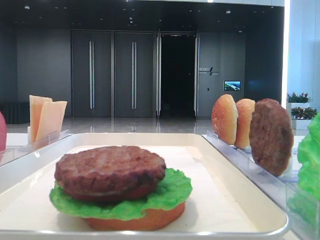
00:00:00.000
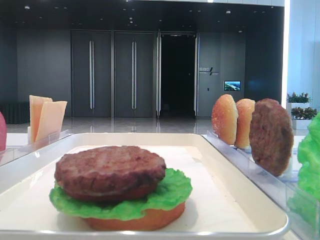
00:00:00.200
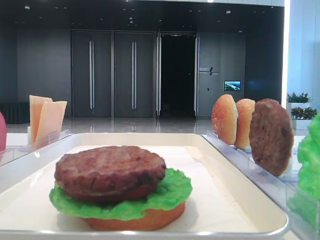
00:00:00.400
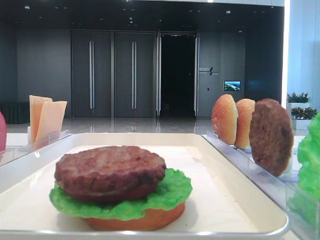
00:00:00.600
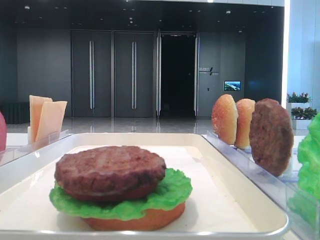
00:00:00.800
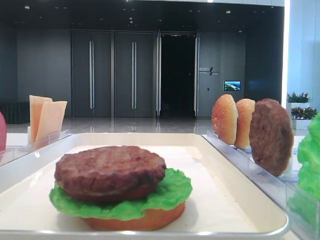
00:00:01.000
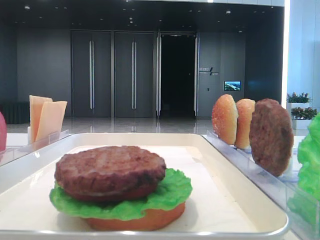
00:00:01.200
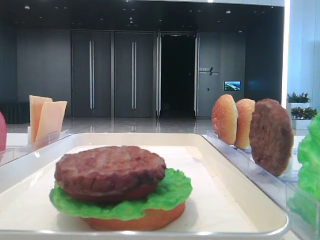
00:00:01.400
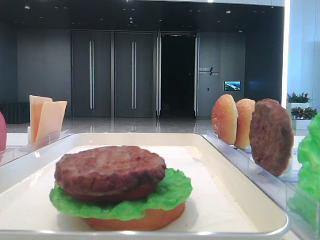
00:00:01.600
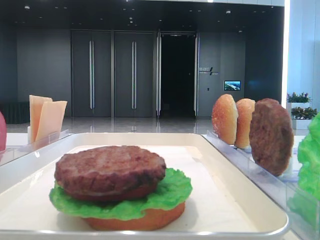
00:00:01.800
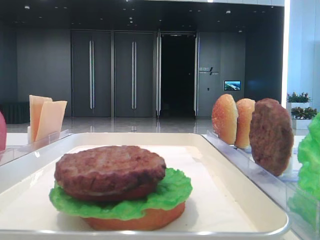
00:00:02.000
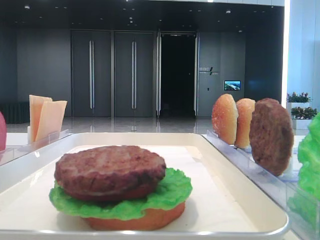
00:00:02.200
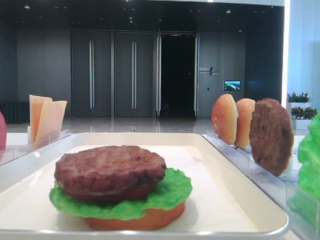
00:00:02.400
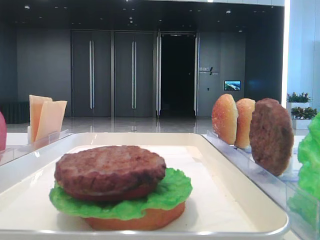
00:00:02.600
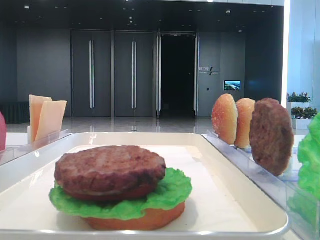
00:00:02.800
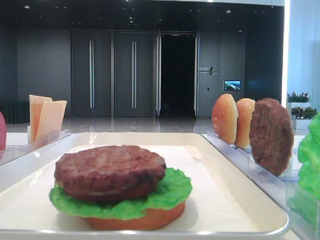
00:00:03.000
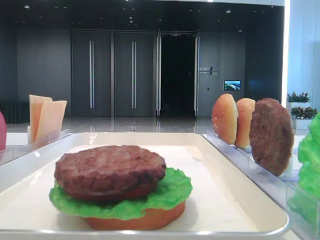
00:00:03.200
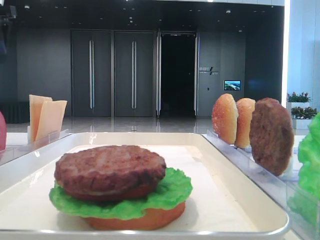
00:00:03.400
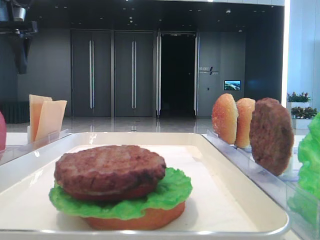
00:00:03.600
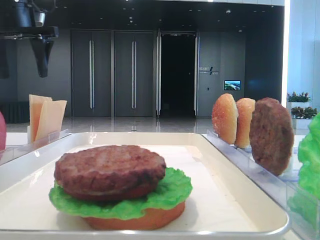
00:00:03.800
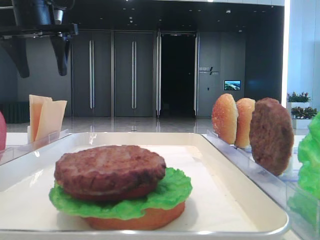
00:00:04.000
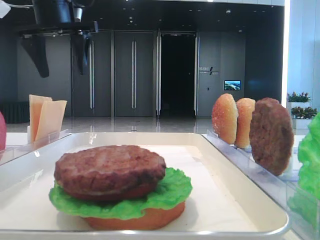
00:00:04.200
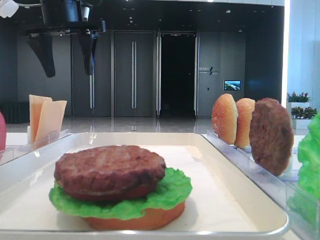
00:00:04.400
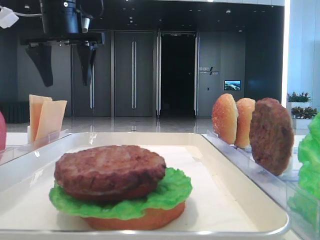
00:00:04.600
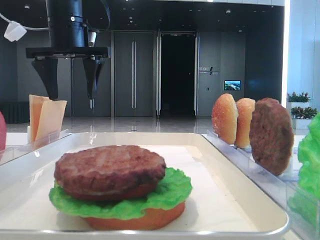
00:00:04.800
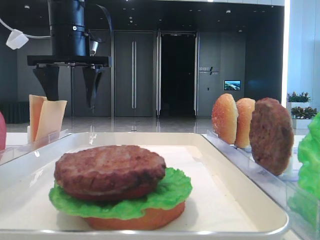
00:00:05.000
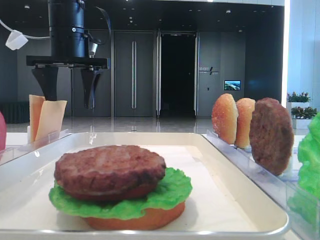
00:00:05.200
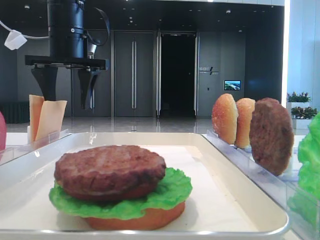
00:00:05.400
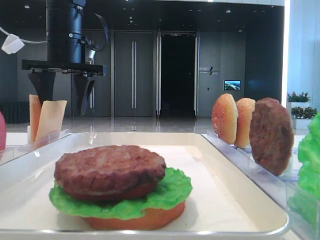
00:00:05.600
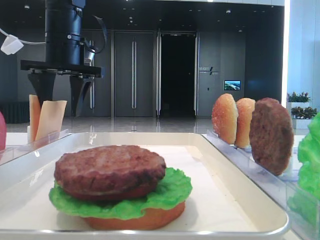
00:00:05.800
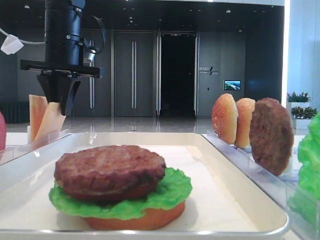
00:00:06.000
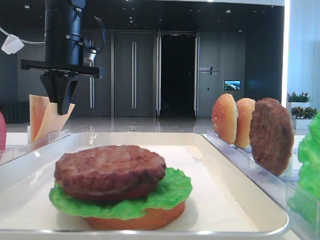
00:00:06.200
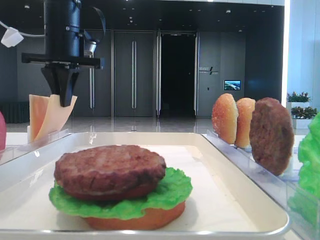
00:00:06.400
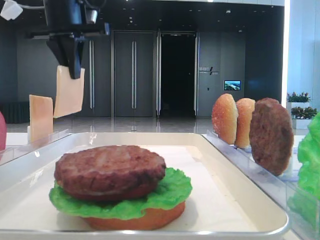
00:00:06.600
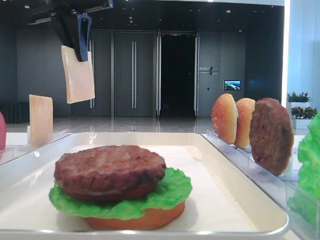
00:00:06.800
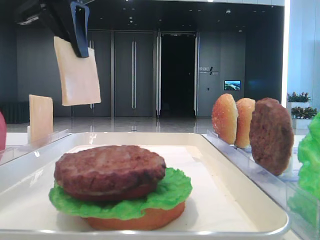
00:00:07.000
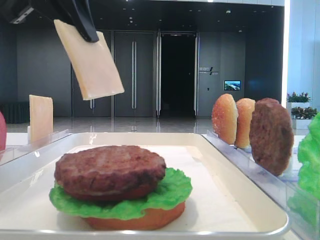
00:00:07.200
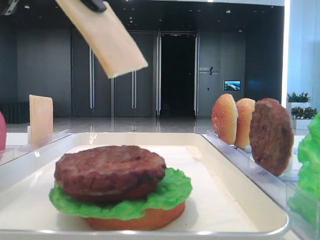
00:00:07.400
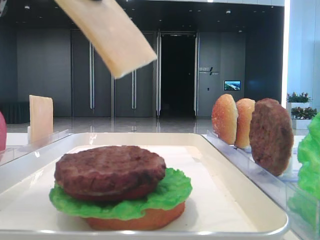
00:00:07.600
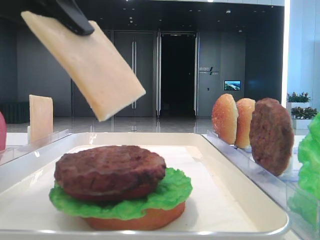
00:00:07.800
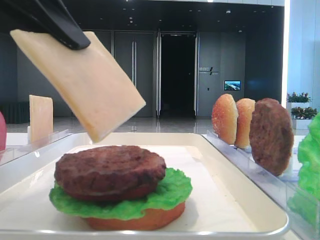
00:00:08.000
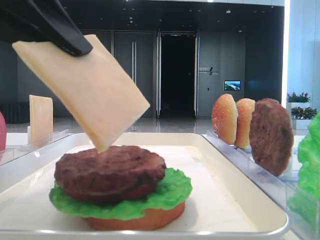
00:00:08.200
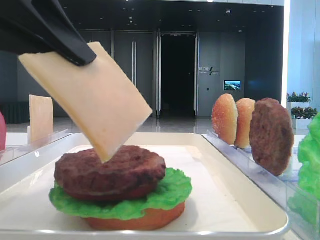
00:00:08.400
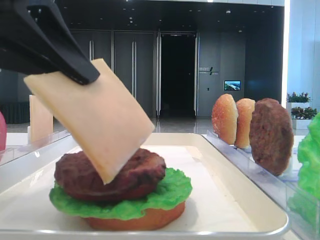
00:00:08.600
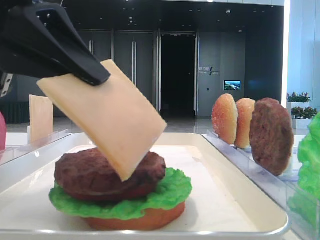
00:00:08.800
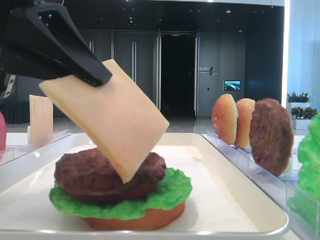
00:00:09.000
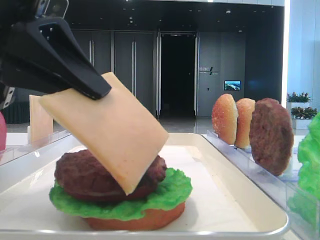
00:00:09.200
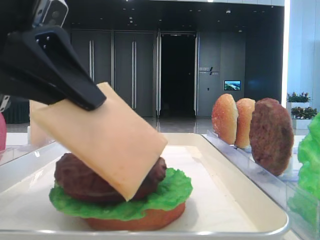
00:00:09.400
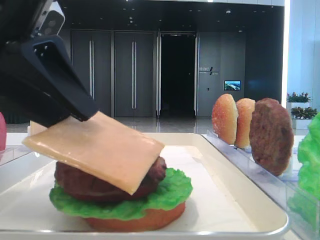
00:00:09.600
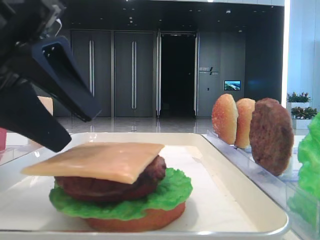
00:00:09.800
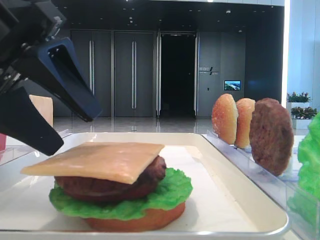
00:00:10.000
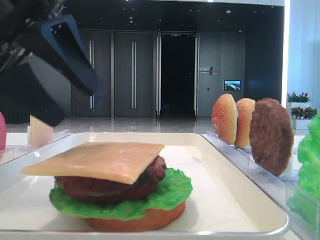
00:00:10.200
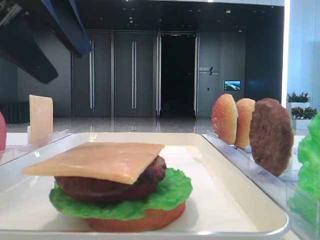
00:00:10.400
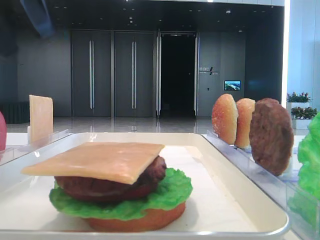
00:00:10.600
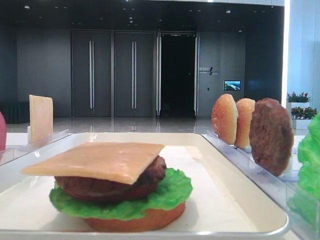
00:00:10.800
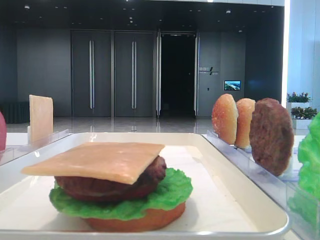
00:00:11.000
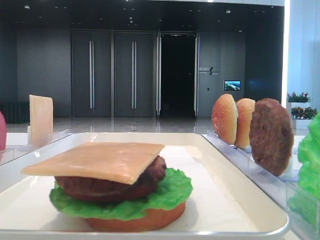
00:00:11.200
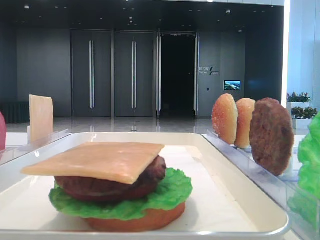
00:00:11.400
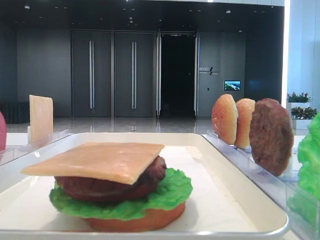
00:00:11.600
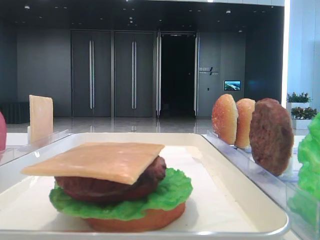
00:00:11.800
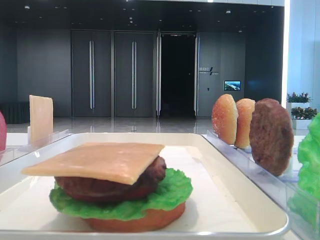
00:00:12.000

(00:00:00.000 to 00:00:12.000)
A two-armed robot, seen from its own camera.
Step, 00:00:00.000 - 00:00:06.000: Pick up the cheese slice with the left hand.
Step, 00:00:06.400 - 00:00:09.600: Place the cheese slice on the patty with the left hand.
00:00:03.000 - 00:00:04.400: The left gripper moves to the right and forward, some 15 cm.
00:00:04.400 - 00:00:06.000: The left gripper moves downward, some 5 cm, and closes up.
00:00:06.000 - 00:00:07.600: The left gripper goes approximately 25 cm backward.
00:00:07.600 - 00:00:09.000: The left gripper goes some 5 cm downward.
00:00:09.000 - 00:00:10.400: The left gripper is displaced upward by about 10 cm, and opens its fingers.
00:00:10.400 - 00:00:12.000: The left gripper travels backward and to the left by some 20 cm.

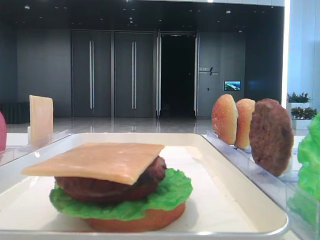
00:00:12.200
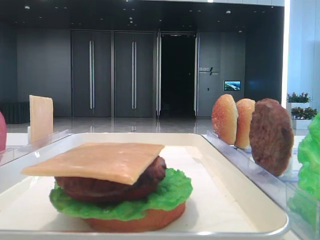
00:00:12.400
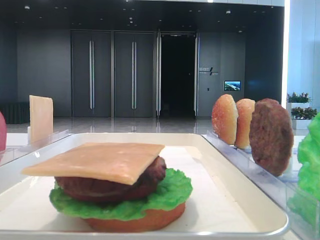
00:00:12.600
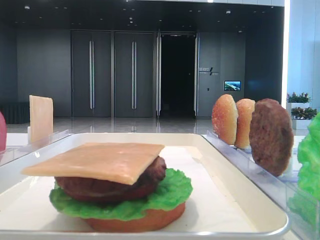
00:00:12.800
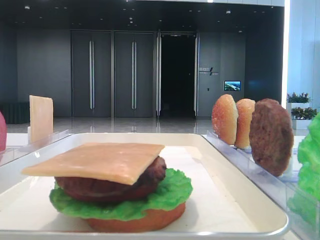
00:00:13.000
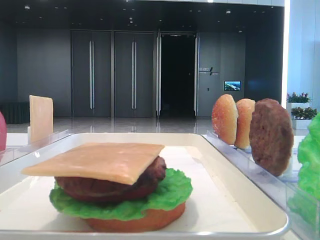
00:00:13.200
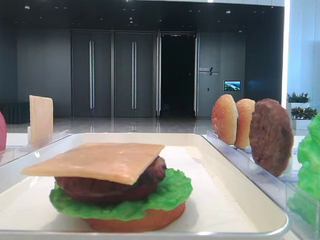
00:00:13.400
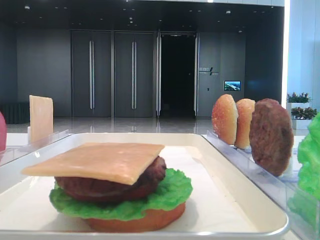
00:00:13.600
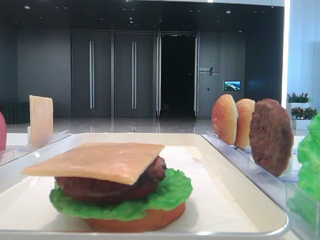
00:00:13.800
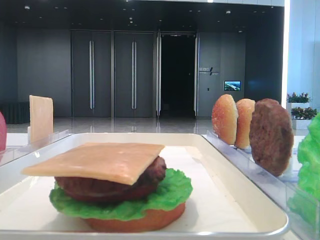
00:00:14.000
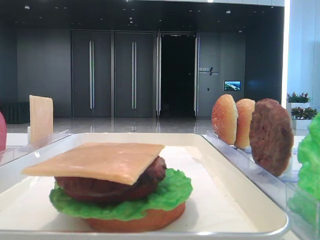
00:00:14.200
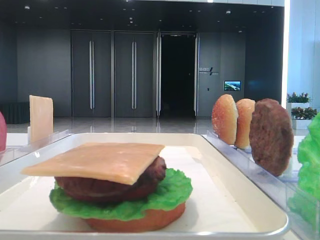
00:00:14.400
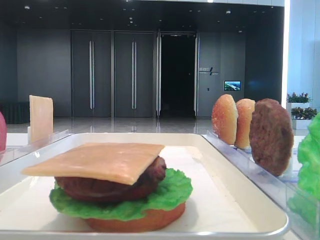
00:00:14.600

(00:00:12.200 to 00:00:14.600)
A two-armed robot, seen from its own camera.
00:00:13.400 - 00:00:14.600: The two grippers keep their place.

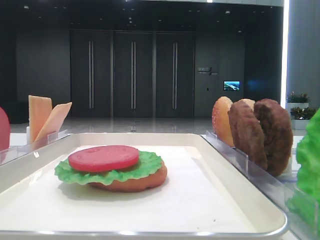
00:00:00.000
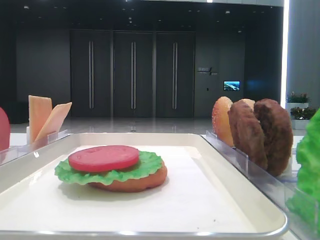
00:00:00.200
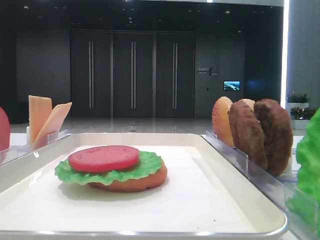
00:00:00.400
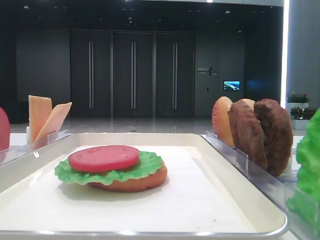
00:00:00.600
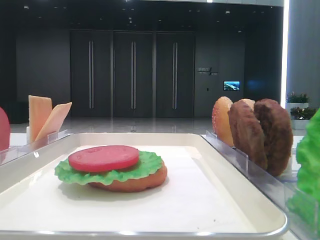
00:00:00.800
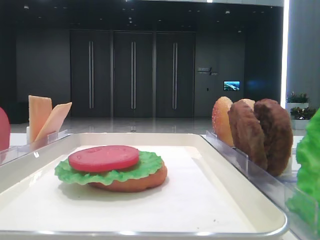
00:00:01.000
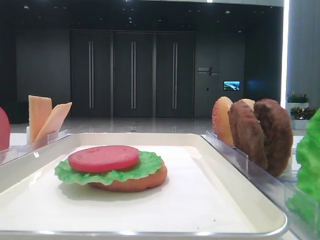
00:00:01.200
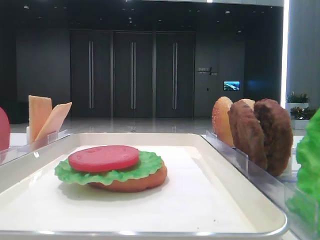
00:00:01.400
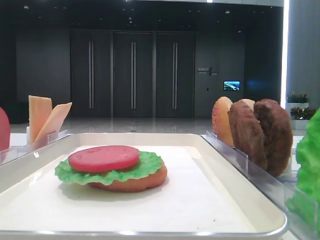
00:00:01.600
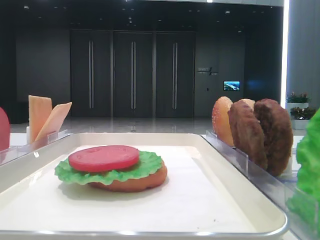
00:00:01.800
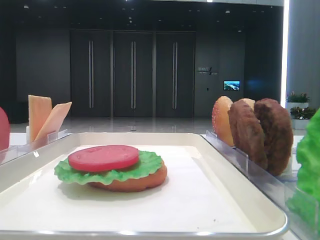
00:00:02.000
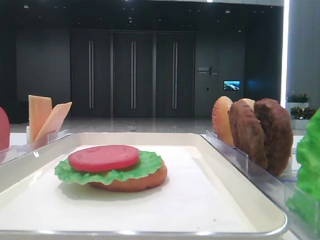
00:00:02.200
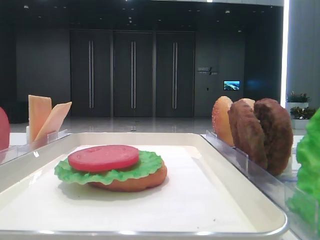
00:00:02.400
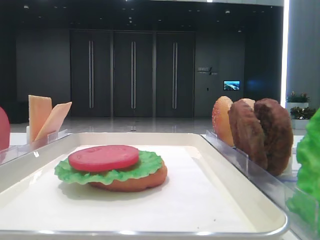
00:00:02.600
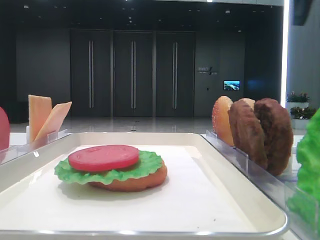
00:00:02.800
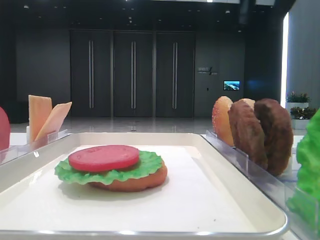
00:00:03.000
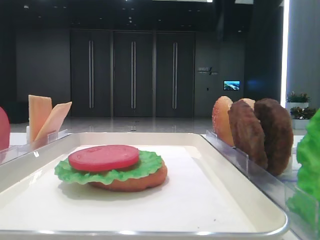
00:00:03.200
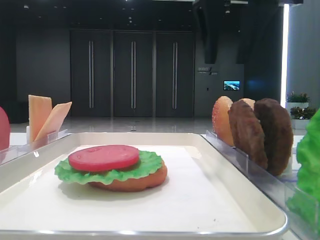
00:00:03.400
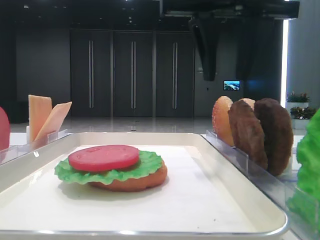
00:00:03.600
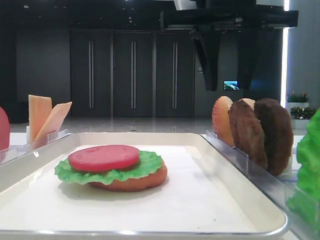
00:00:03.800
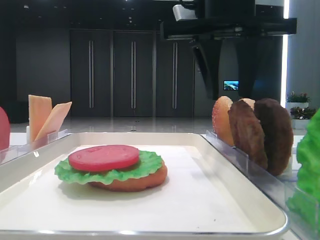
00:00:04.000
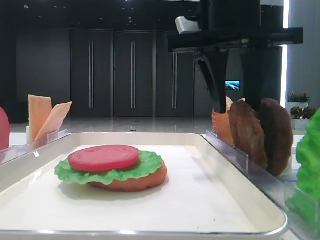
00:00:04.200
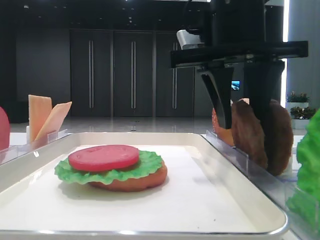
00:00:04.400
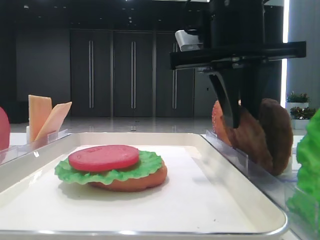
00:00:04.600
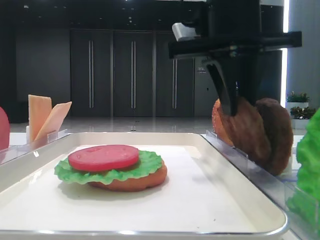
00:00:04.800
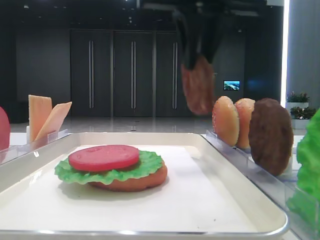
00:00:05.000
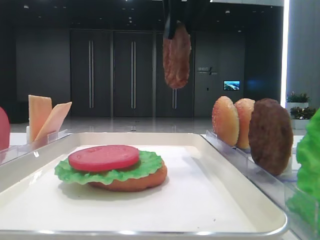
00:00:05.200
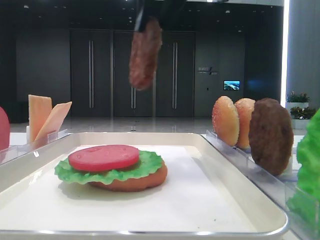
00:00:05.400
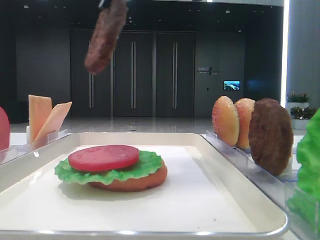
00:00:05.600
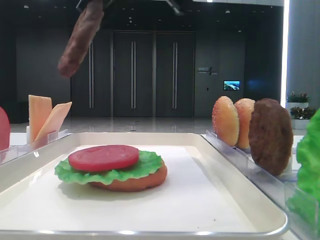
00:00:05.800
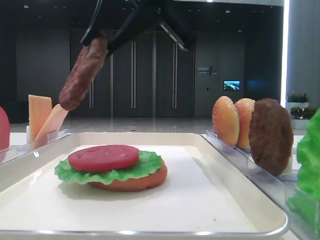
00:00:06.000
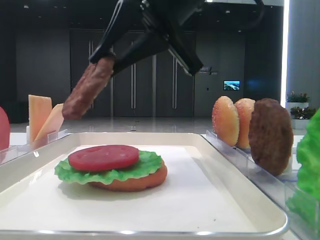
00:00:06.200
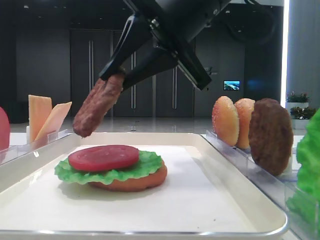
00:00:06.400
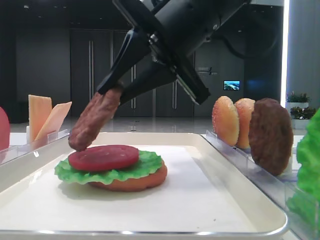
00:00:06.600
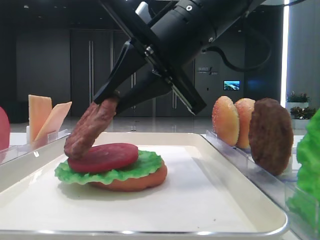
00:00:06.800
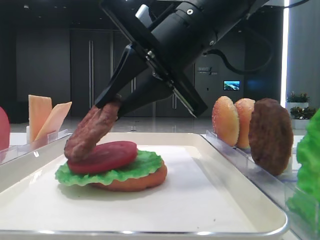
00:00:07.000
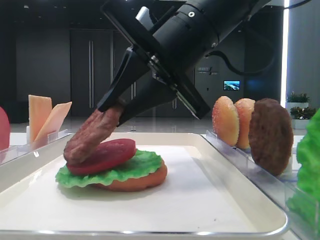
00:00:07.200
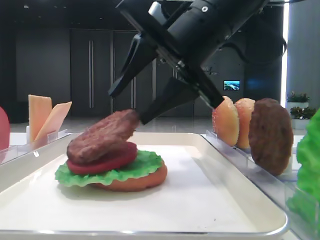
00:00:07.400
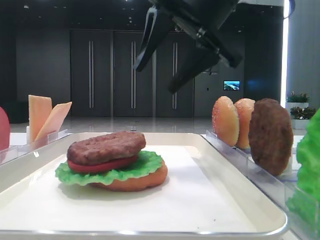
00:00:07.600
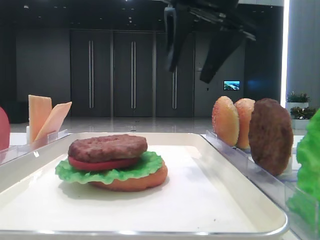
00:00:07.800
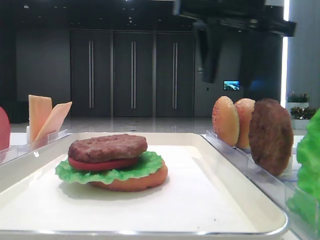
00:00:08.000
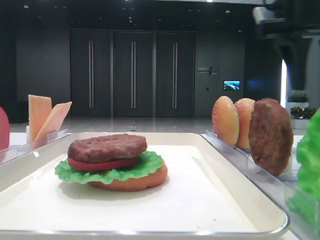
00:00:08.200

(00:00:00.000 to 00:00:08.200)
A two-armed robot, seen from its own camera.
Step, 00:00:00.000 - 00:00:04.600: Grab the patty with the right hand.
Step, 00:00:04.800 - 00:00:07.400: Place the patty on the tomato slice with the right hand.
00:00:01.600 - 00:00:03.200: The right gripper travels forward and to the left by approximately 35 cm.
00:00:03.200 - 00:00:05.000: The right gripper goes downward and returns, roughly 10 cm each way, and closes its fingers.
00:00:05.000 - 00:00:06.600: The right gripper shifts about 10 cm downward.
00:00:06.600 - 00:00:08.200: The right gripper heads to the right, covering about 20 cm, and opens up.
